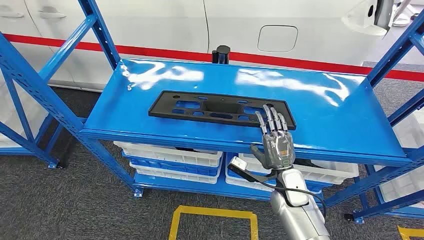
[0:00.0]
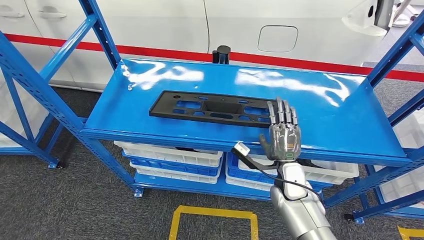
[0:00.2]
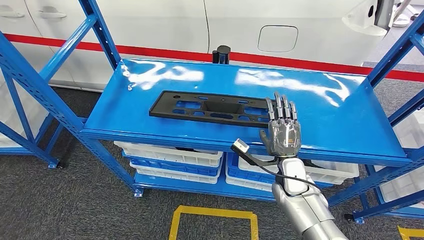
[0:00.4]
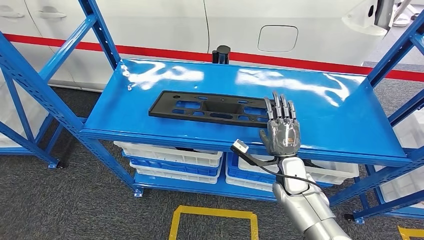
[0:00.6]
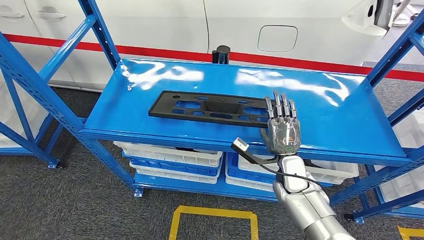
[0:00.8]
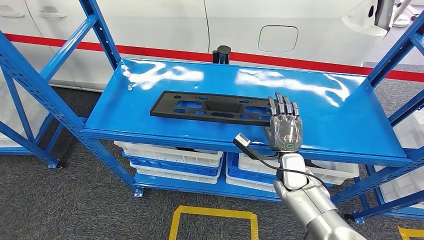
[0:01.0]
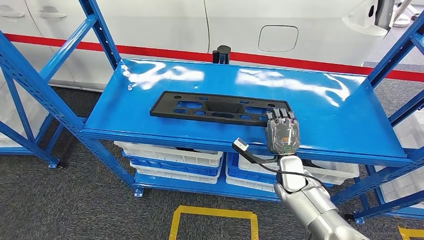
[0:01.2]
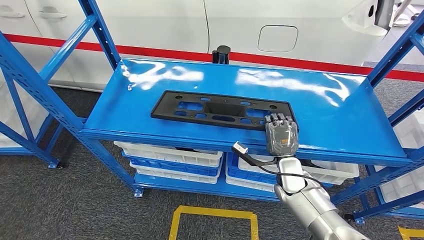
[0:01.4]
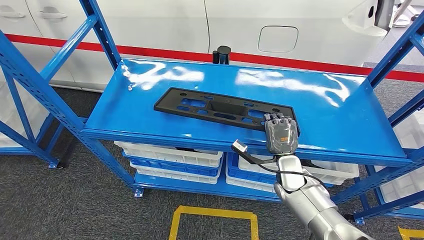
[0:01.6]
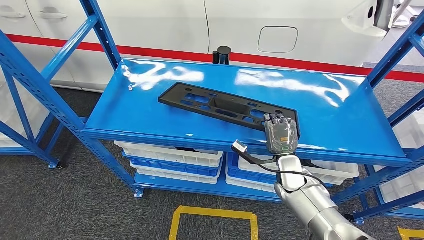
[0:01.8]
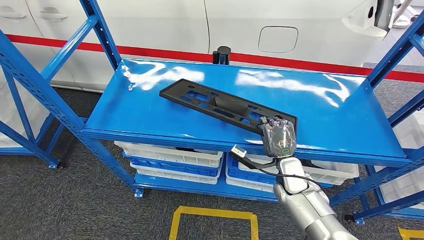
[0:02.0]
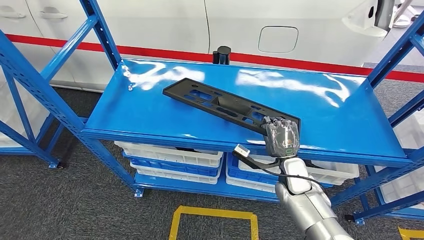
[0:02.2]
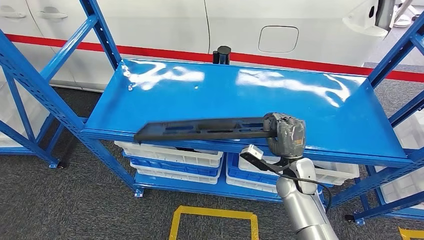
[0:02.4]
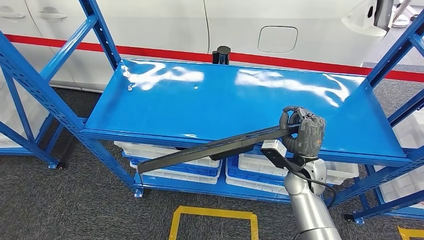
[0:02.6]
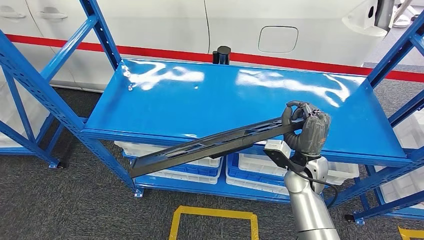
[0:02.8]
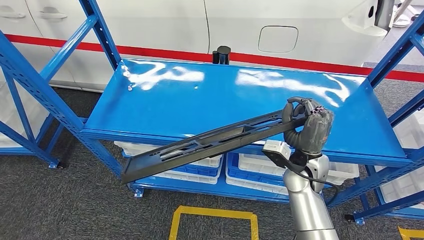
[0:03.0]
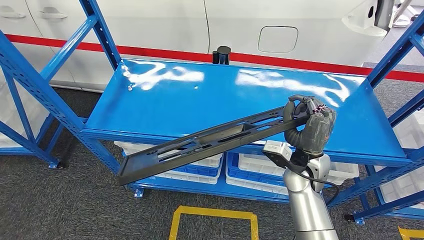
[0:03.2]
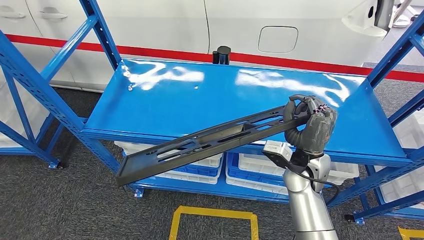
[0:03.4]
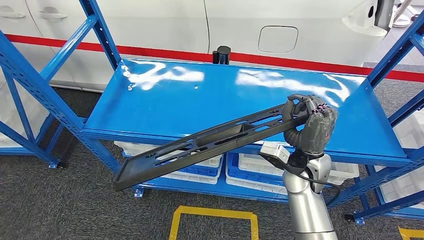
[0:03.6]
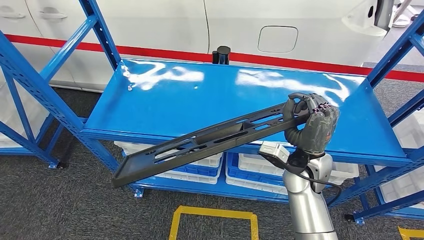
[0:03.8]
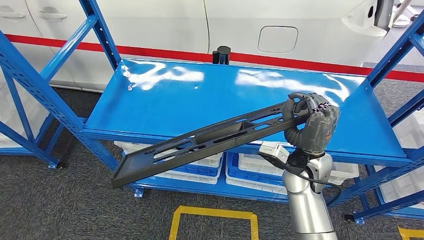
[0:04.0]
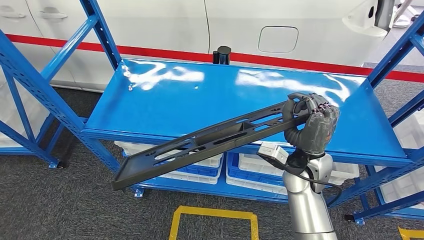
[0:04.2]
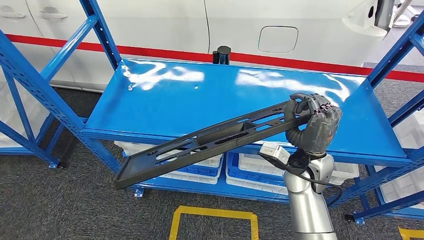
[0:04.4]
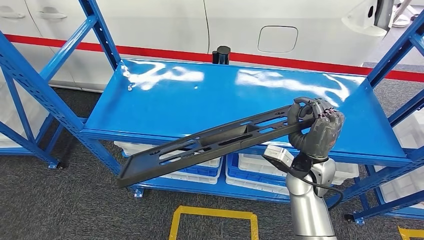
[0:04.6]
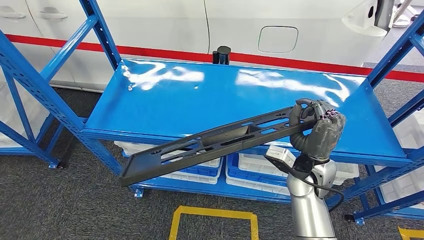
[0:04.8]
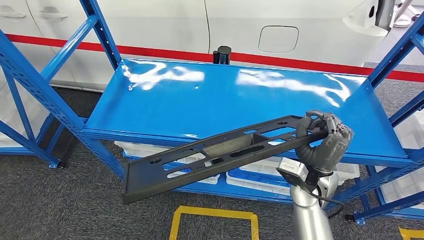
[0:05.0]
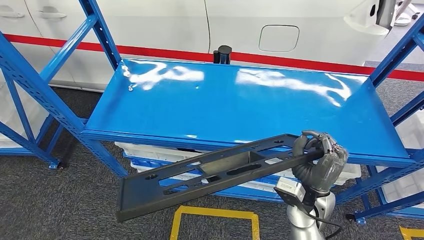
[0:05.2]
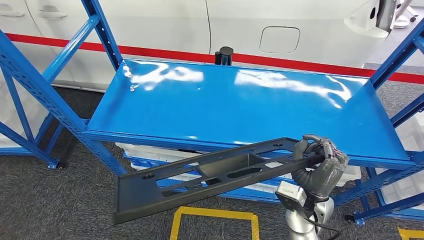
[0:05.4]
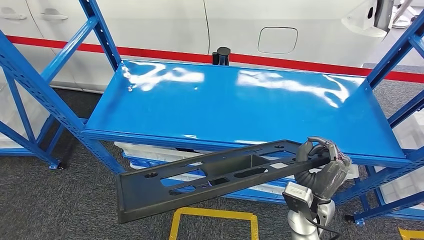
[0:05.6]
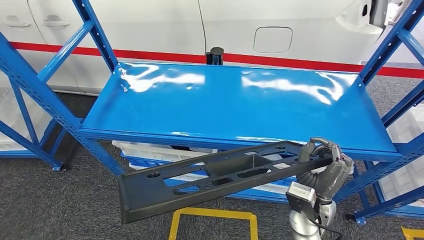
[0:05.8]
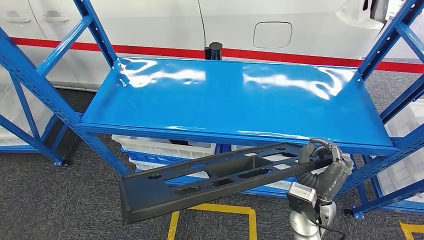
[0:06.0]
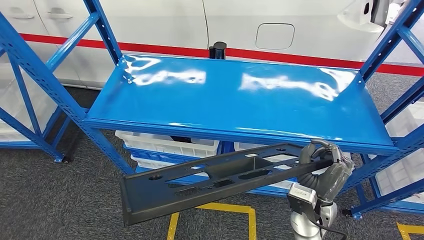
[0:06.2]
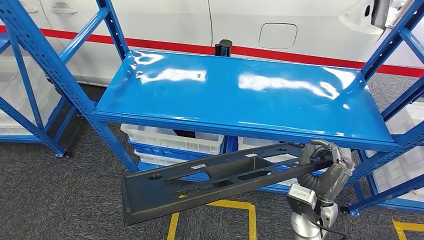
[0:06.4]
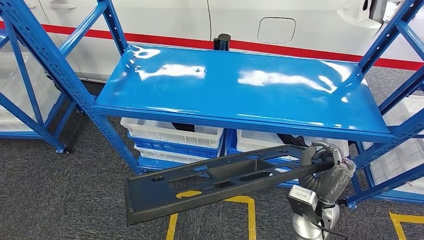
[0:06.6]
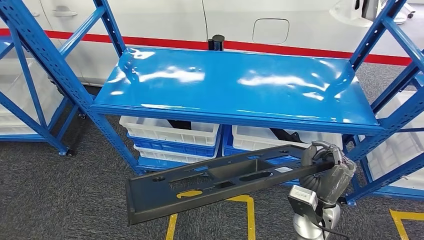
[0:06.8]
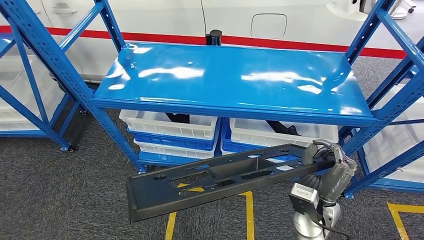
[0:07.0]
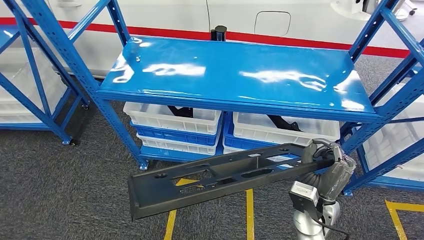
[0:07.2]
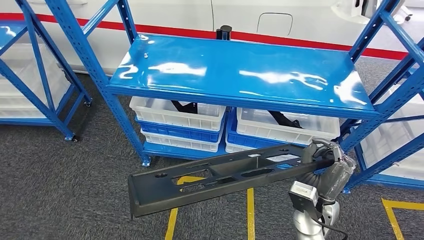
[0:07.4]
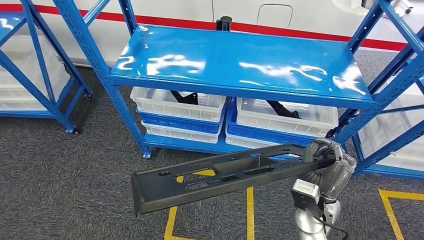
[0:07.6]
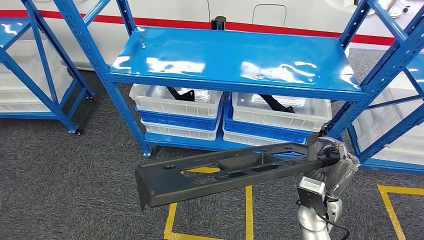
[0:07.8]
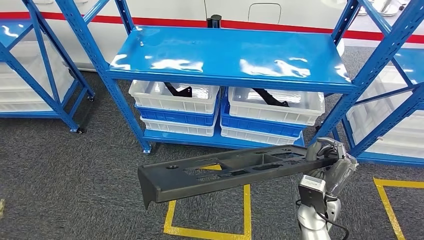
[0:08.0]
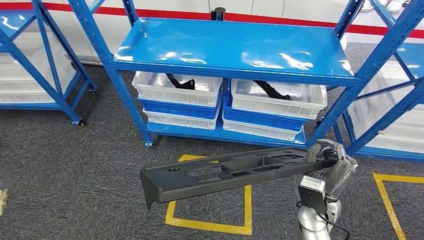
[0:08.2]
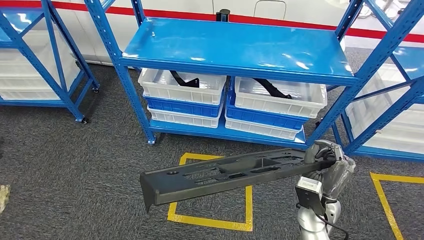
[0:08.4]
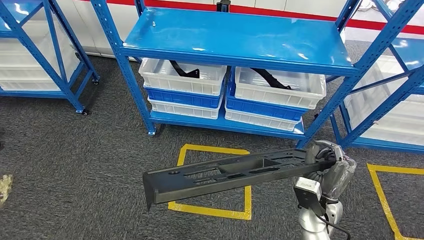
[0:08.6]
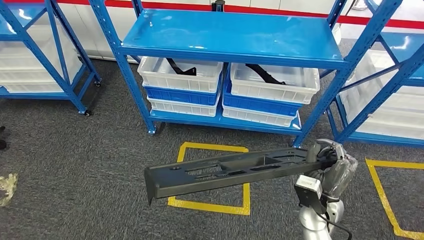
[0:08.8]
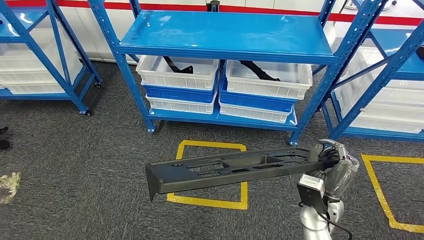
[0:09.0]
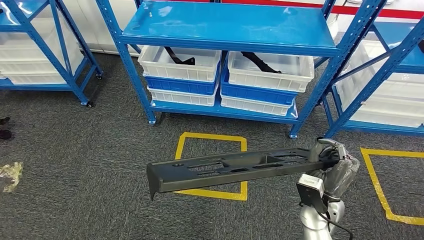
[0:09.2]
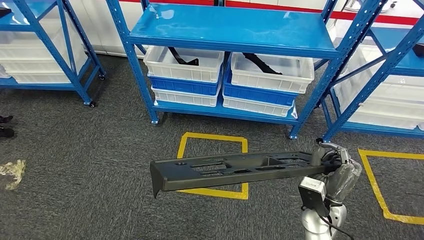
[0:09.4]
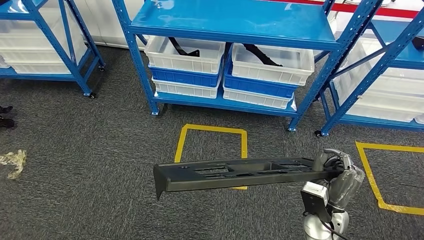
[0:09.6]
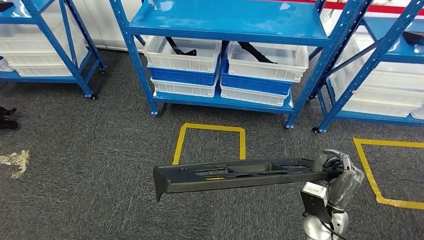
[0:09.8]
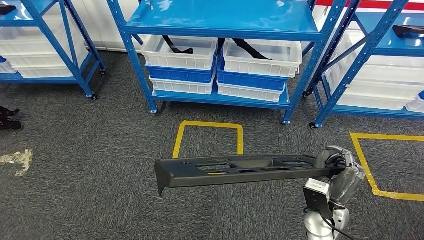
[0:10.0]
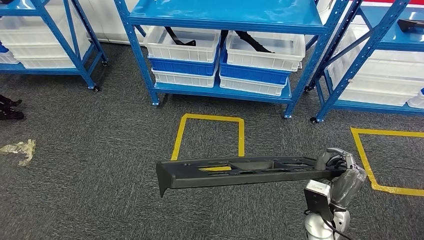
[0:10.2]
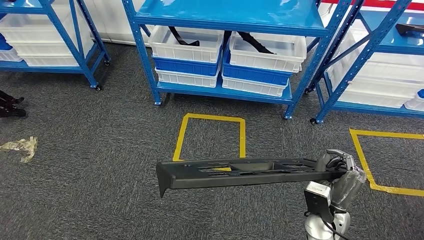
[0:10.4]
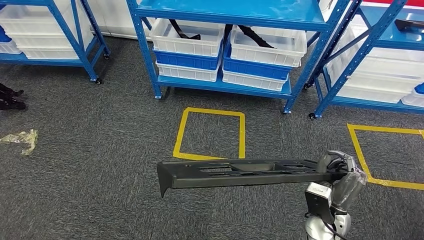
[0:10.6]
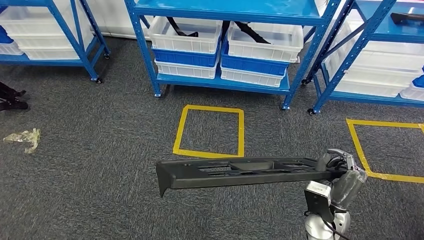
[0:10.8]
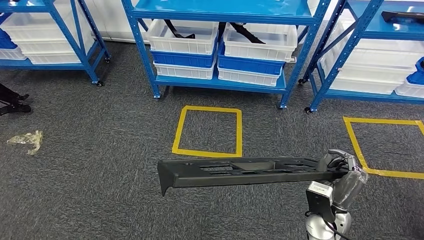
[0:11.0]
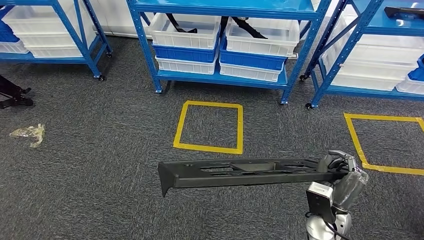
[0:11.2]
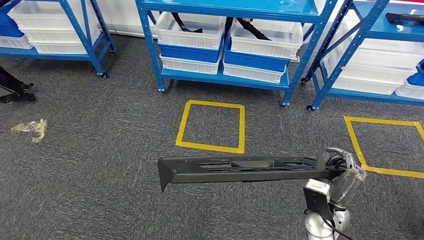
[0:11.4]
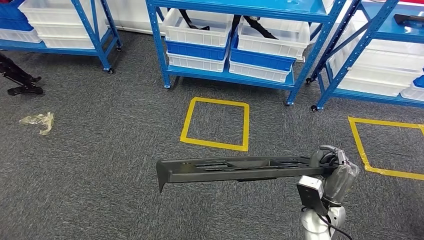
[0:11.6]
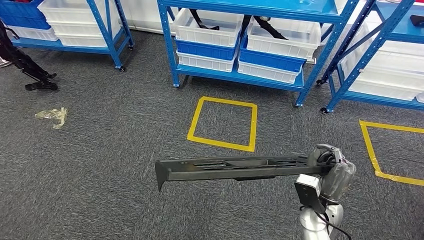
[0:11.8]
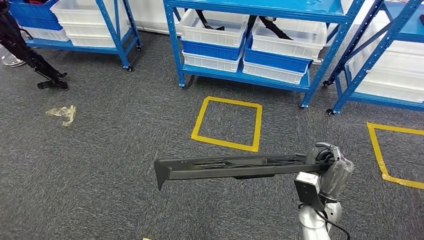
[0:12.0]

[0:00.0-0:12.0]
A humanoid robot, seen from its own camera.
Step, 0:00.0 to 0:05.8: Pick up the large material from the shelf.
0:01.6 to 0:03.0: The right hand travels upward by approximately 10 cm.
0:03.0 to 0:04.4: The hands stay close to where they were, moving slightly.

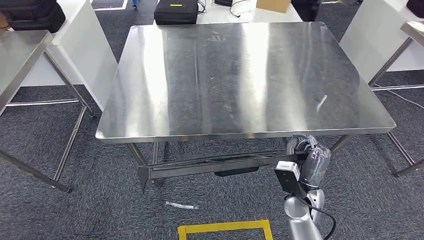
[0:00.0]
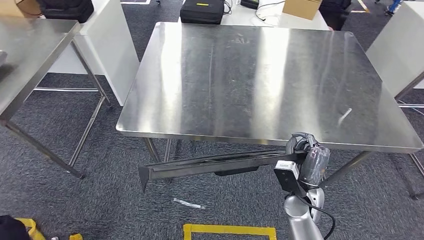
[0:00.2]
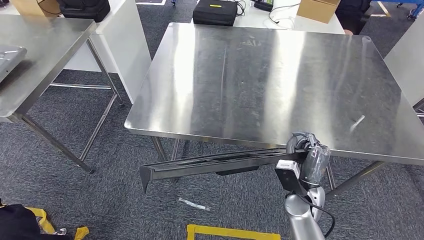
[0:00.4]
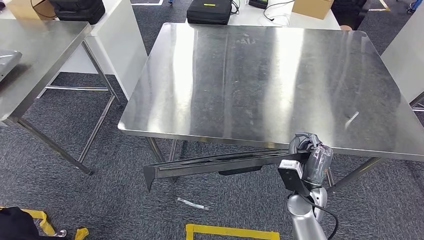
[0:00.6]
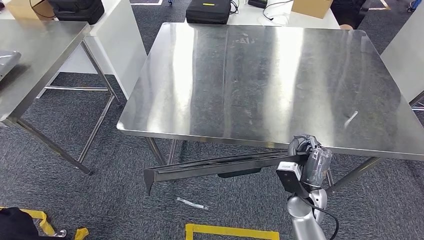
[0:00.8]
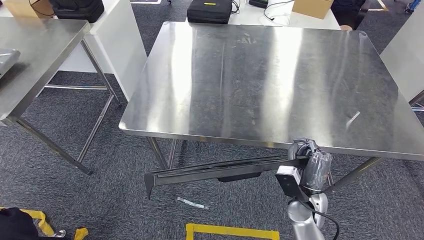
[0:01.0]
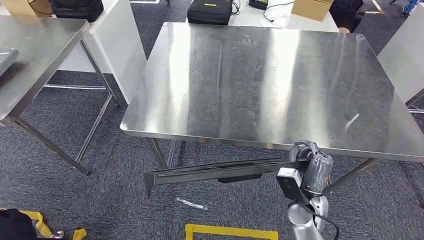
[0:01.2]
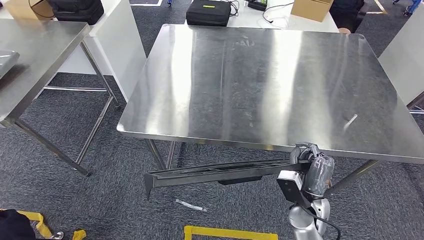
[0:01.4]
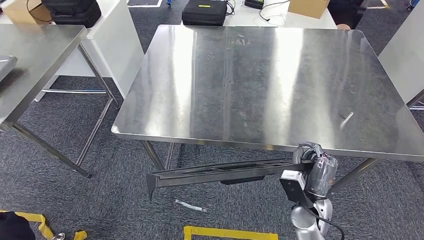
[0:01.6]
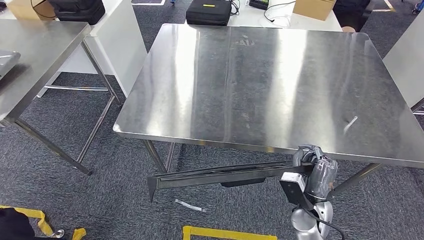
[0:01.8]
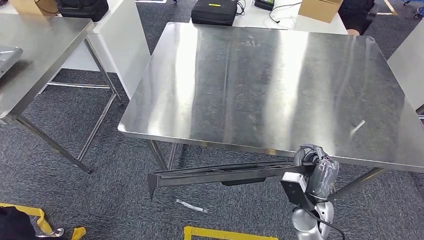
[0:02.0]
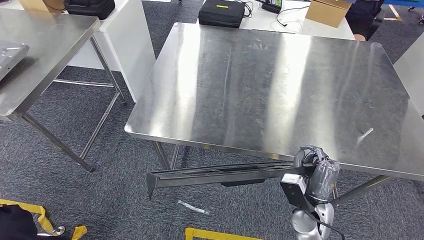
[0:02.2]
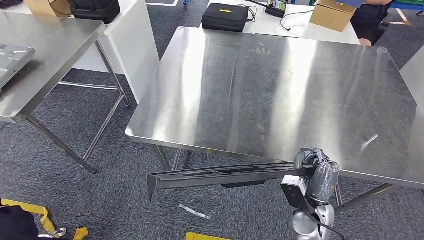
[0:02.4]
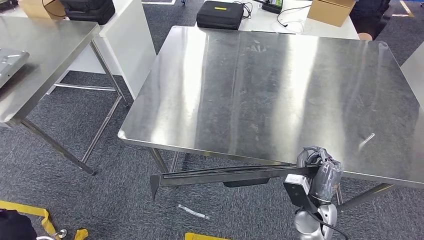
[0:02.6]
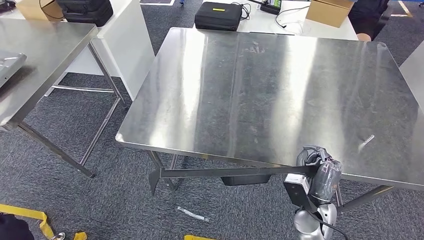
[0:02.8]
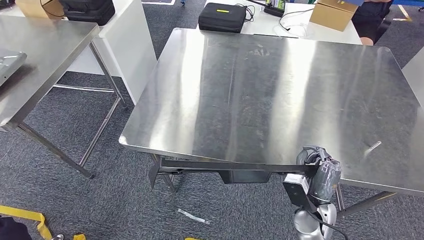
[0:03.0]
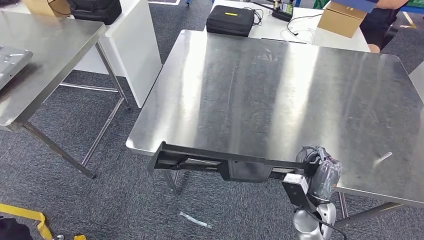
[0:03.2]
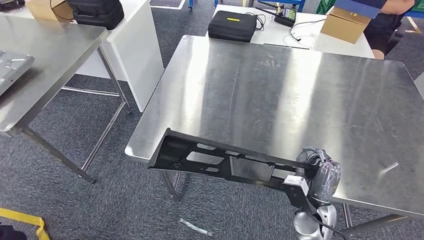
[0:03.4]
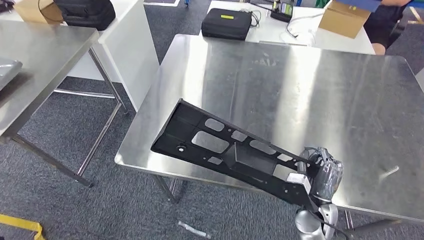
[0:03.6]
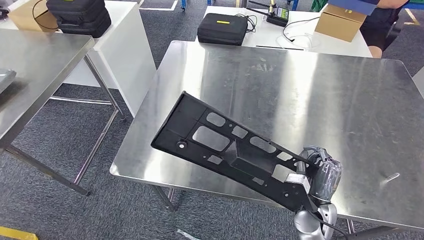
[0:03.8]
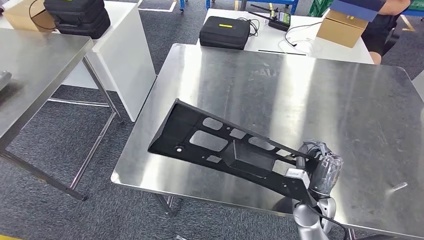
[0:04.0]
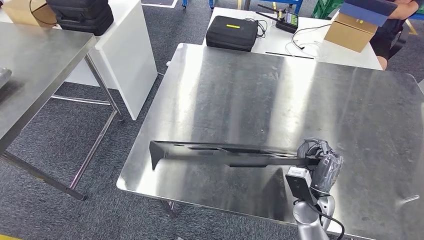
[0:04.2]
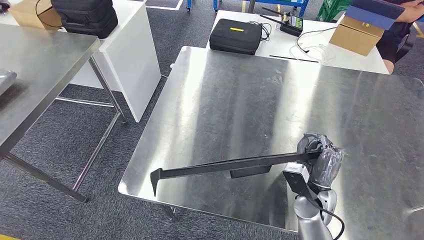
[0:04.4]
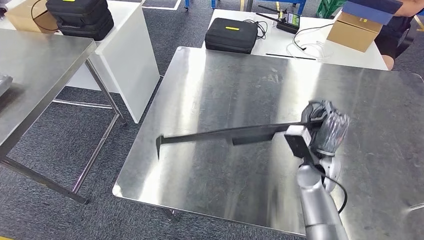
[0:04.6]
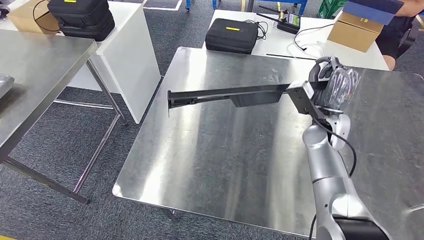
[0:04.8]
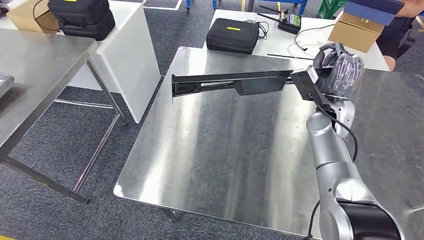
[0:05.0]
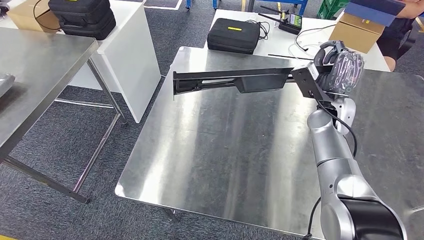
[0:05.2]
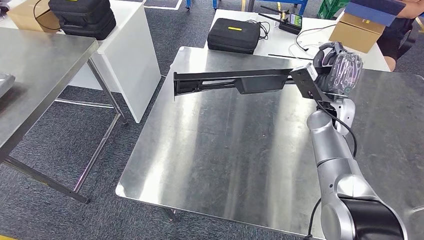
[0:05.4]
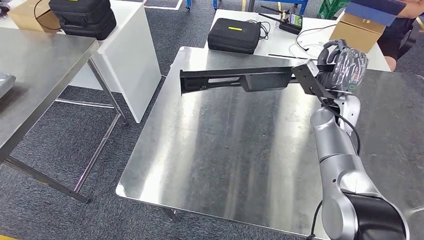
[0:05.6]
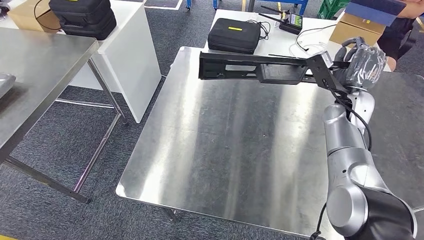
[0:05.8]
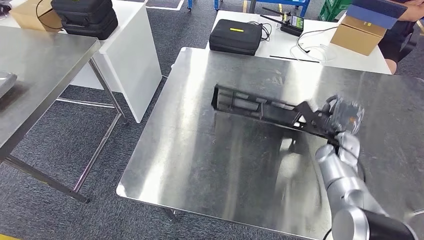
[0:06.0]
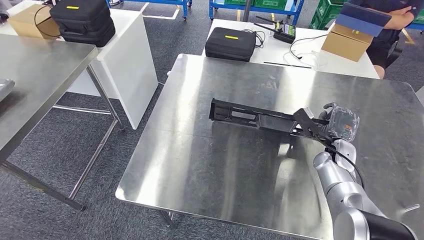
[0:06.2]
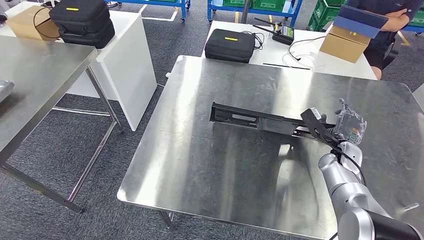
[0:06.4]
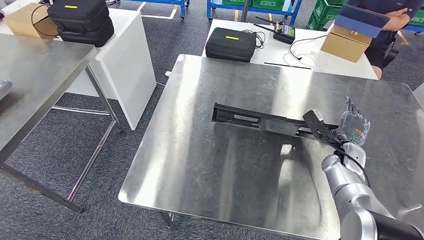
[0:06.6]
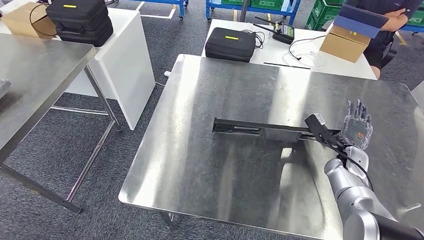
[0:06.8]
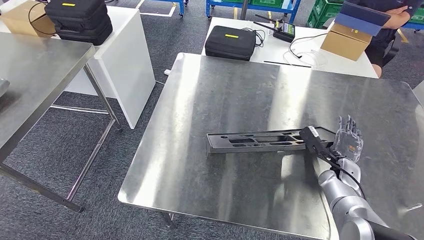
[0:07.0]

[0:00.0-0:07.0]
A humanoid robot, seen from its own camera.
Step, 0:00.0 to 0:02.6: Move the large material to the workbench.
